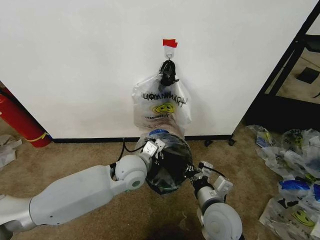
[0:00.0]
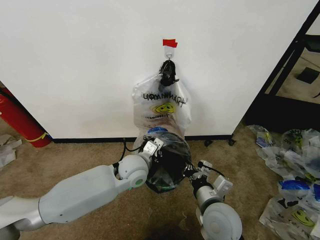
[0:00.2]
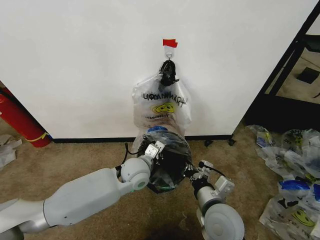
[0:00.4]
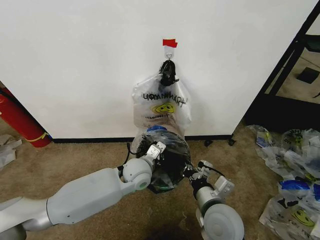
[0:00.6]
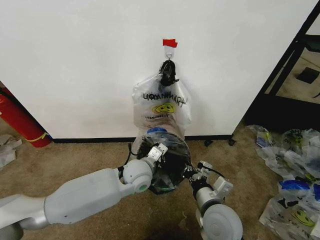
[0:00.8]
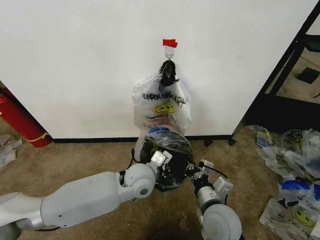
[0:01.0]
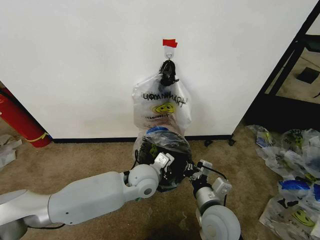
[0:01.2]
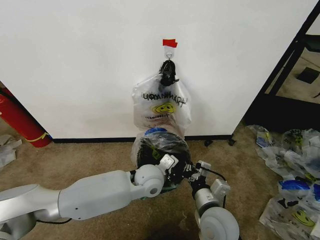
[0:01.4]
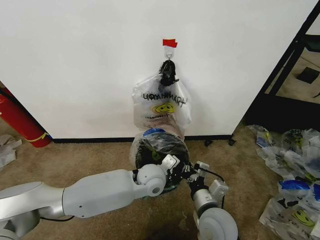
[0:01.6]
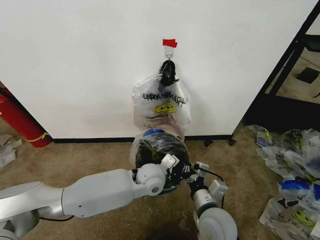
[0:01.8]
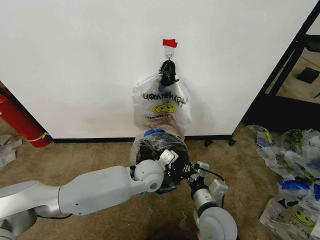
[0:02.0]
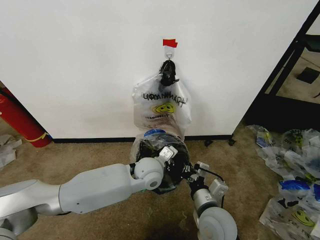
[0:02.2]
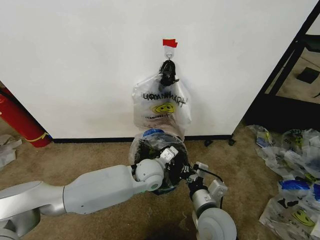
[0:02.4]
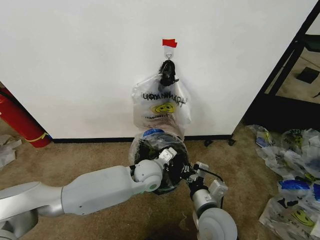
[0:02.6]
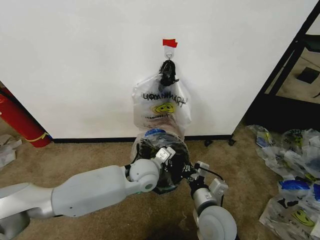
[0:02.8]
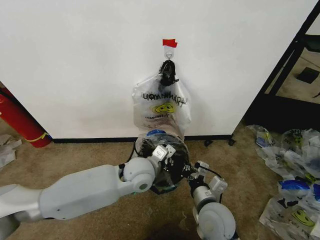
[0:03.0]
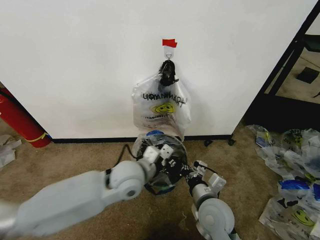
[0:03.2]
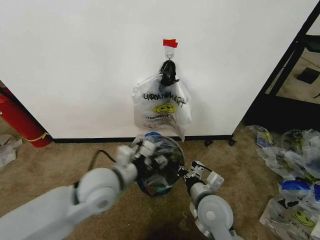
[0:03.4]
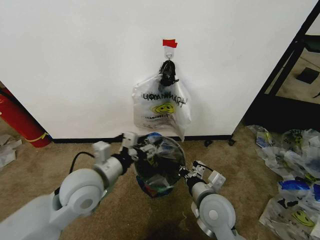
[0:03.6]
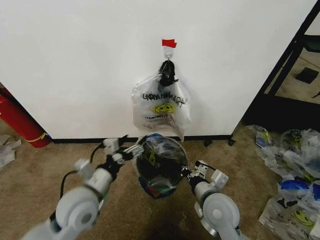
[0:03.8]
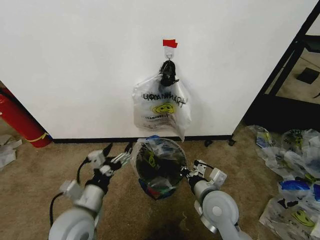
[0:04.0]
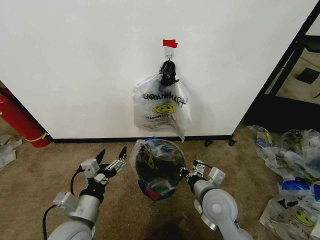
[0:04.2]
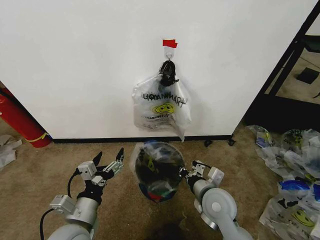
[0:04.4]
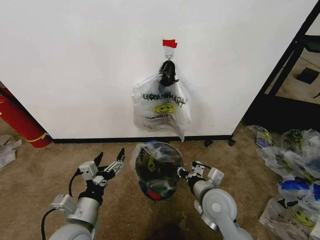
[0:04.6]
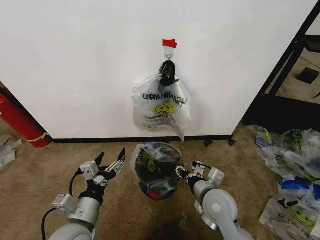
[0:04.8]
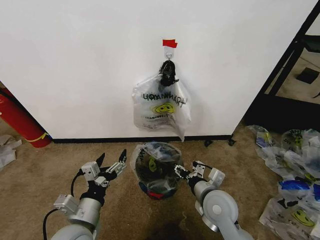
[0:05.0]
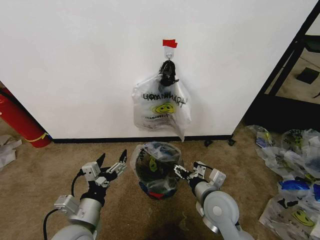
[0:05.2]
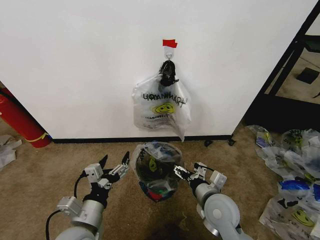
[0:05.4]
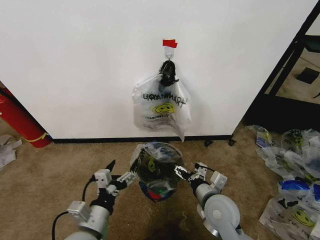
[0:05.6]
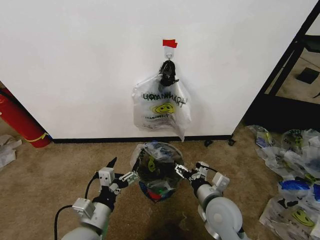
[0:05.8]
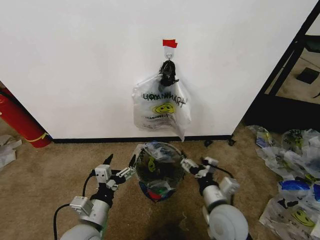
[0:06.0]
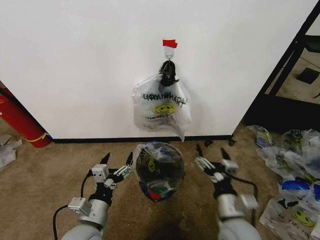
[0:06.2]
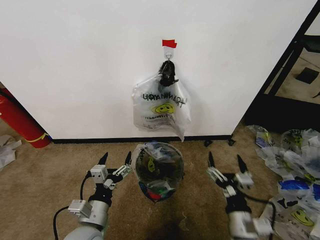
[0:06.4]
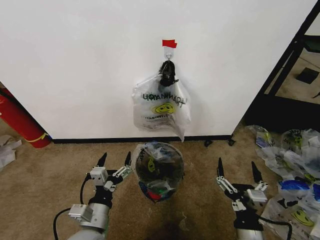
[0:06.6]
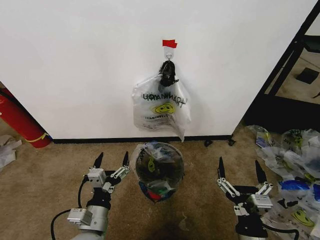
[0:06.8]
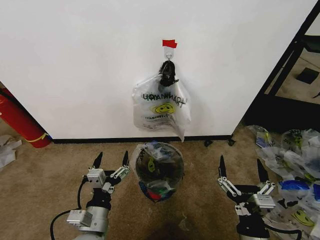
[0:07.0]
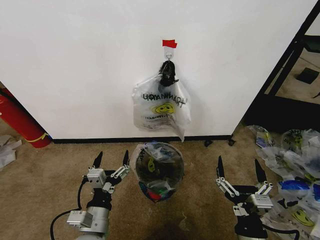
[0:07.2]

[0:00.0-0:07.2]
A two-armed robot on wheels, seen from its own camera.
Task of the whole recording: Pick up the garbage bag from the wall and place it over the trash bin.
0:00.0 to 0:01.4: The left gripper ends up some 5 cm from where it was.
0:01.4 to 0:02.8: The grippers stay close to where they were, moving slightly.
0:02.8 to 0:04.4: The left gripper moves backward and to the left, about 25 cm, and opens, while the right gripper changes place by approximately 5 cm.
0:04.4 to 0:05.8: The right gripper opens up.
0:05.8 to 0:07.2: The right gripper is displaced backward by about 15 cm.

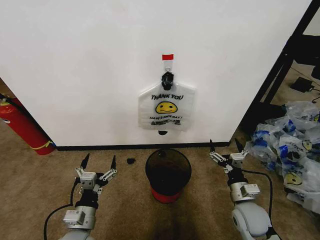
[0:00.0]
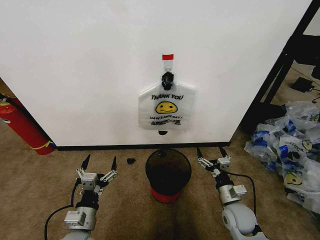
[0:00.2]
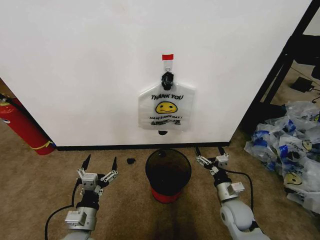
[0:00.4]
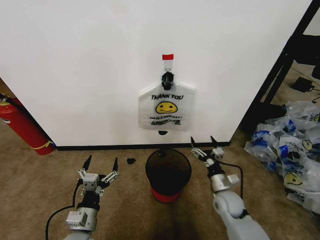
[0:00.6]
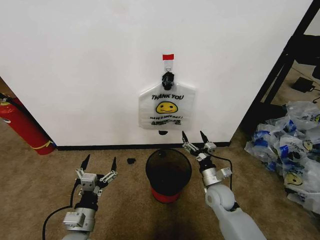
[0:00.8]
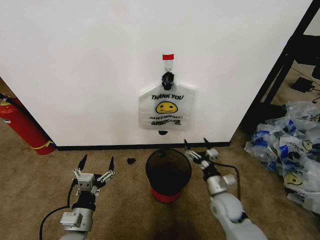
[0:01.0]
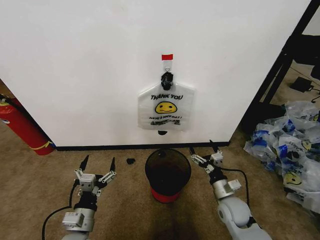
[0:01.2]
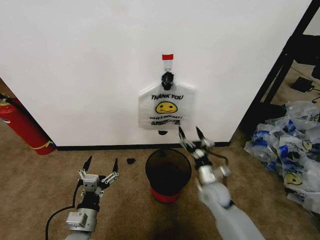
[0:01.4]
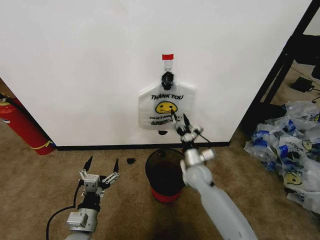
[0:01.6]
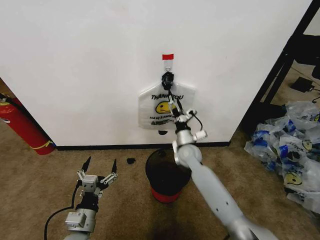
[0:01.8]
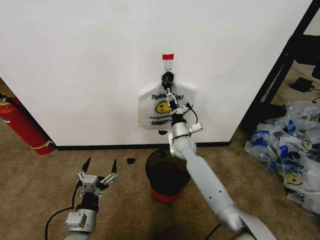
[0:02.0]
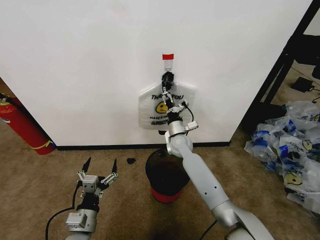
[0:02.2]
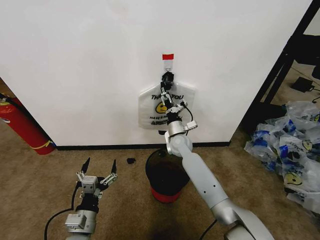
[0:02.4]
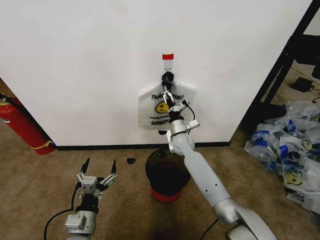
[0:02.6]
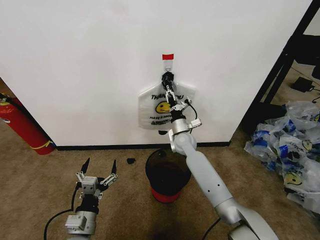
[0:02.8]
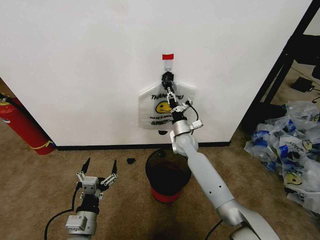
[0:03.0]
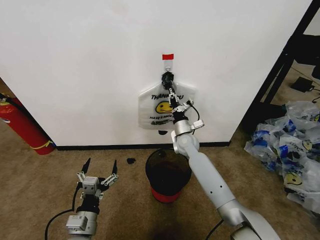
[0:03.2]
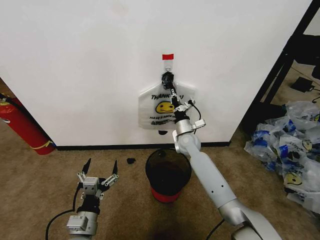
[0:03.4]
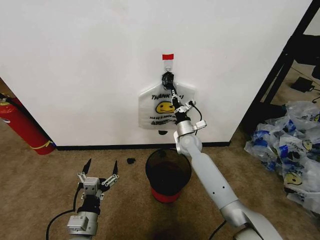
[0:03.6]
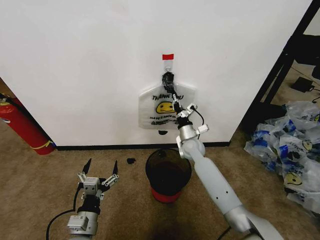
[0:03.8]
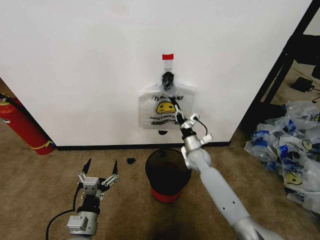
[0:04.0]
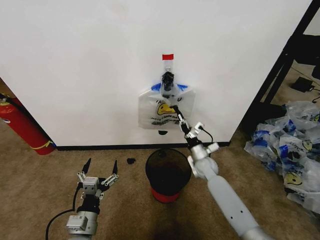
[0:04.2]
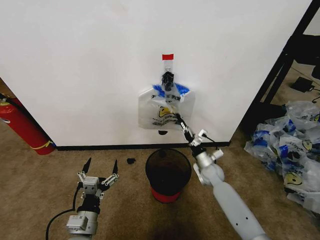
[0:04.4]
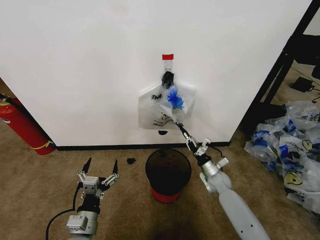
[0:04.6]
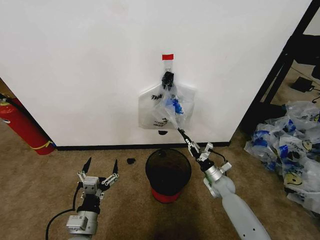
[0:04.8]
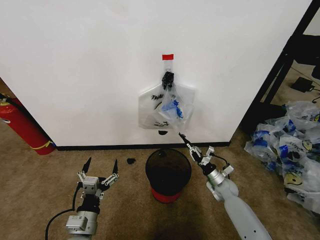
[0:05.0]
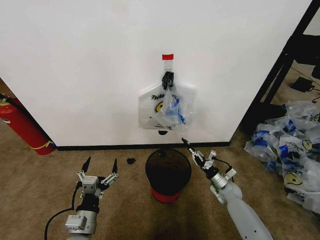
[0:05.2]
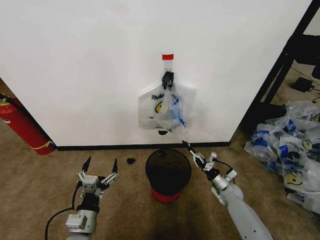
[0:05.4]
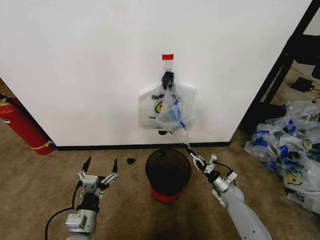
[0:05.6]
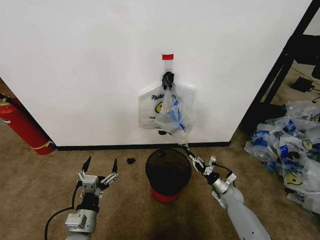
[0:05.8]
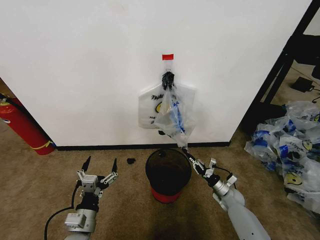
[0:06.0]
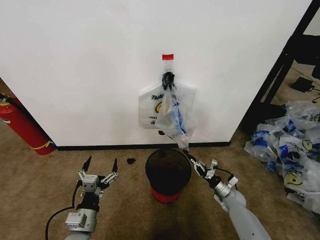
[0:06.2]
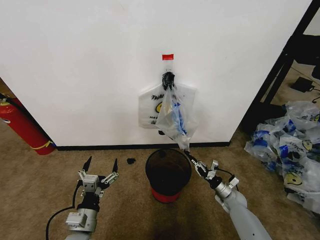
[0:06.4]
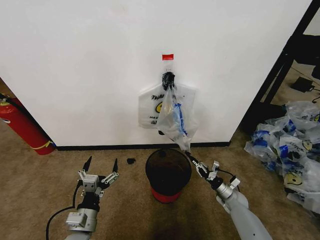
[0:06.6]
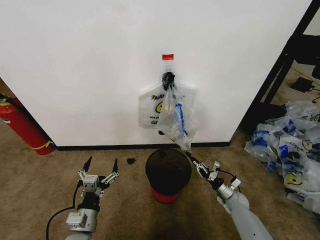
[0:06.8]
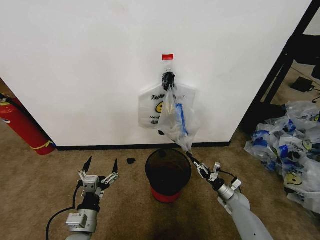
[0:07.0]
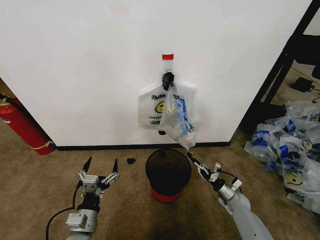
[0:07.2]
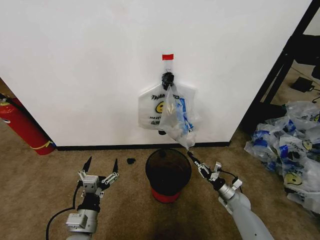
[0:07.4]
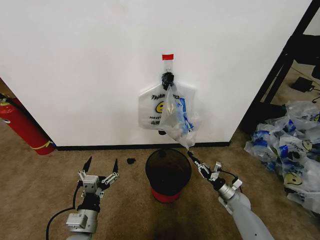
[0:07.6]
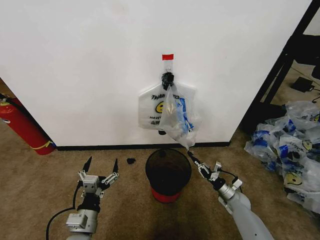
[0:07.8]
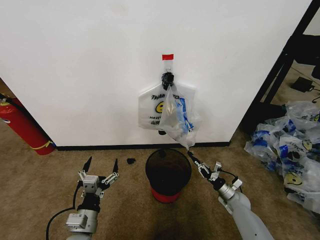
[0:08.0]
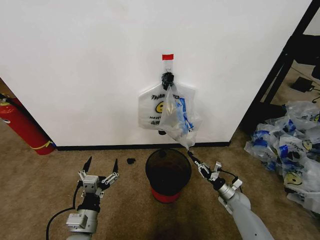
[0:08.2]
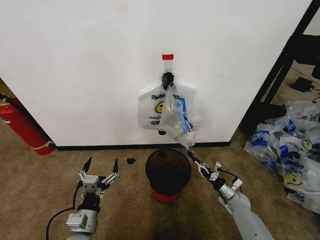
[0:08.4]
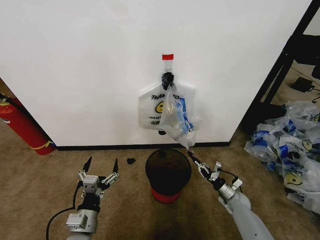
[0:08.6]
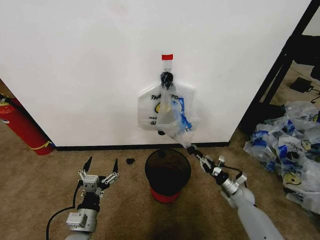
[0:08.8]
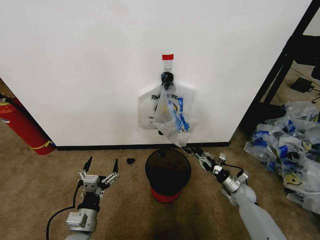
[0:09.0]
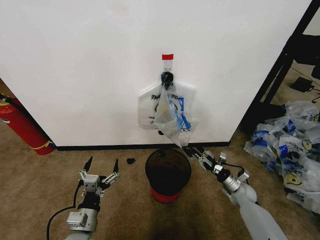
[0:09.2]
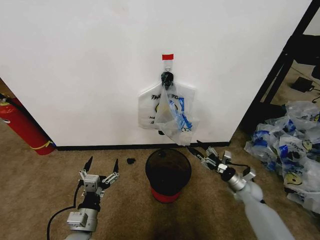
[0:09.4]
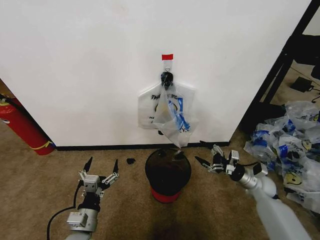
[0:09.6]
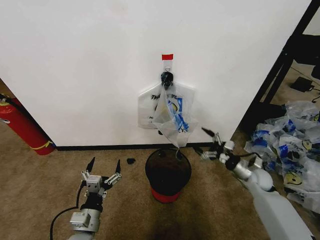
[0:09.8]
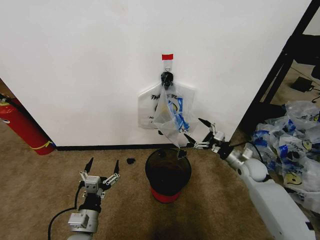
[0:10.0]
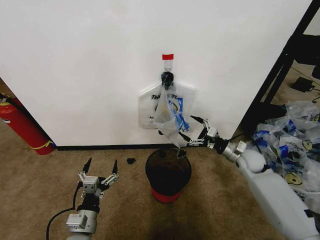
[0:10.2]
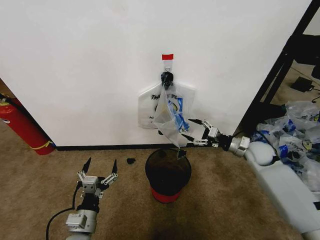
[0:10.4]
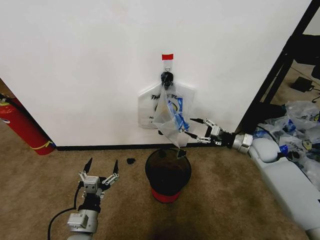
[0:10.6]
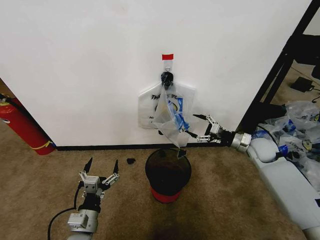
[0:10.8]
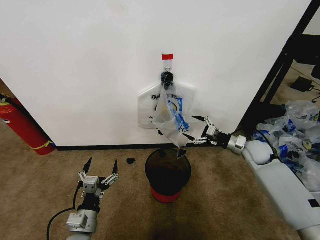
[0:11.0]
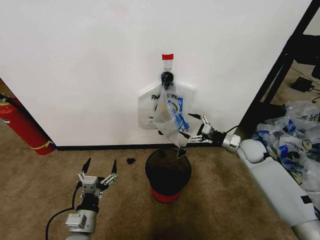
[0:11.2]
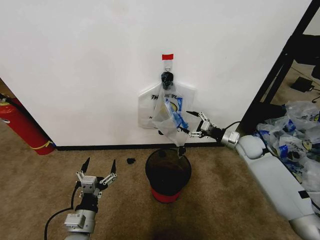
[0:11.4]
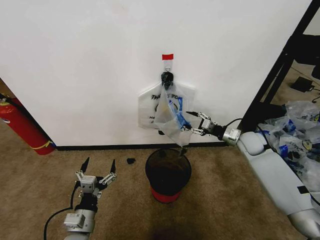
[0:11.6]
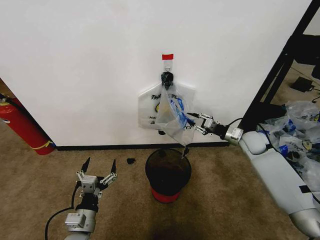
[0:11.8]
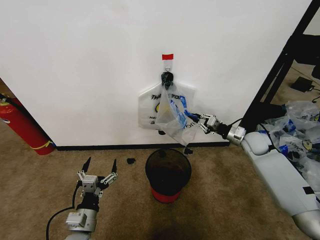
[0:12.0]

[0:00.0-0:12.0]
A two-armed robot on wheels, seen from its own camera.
Task of the whole recording: Pick up the garbage bag from the wall and place it over the trash bin.
0:01.6 to 0:03.0: The right gripper is displaced forward by some 10 cm, and closes up.
0:03.0 to 0:04.4: The right gripper shifts some 20 cm to the right, downward and backward, and closes its fingers.
0:04.4 to 0:06.0: The right gripper goes some 15 cm downward, to the right and backward.
0:06.0 to 0:07.6: The grippers move only a little.
0:07.6 to 0:09.0: The right gripper heads upward, covering about 5 cm.
0:09.0 to 0:10.4: The right gripper shifts approximately 20 cm upward, and opens its fingers.
0:10.4 to 0:12.0: The right gripper closes.

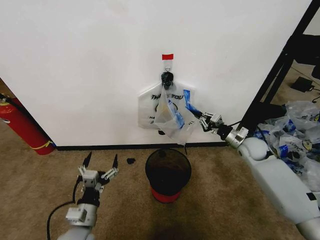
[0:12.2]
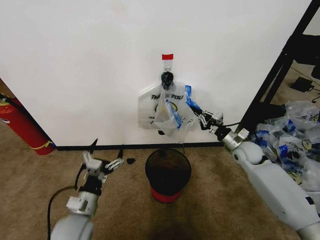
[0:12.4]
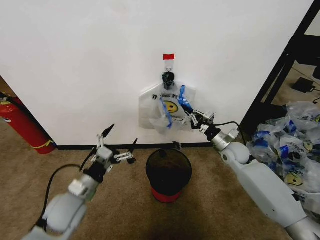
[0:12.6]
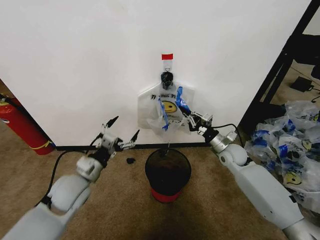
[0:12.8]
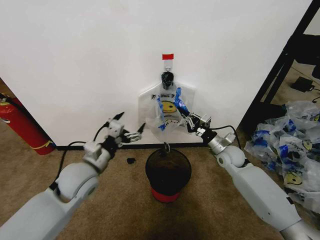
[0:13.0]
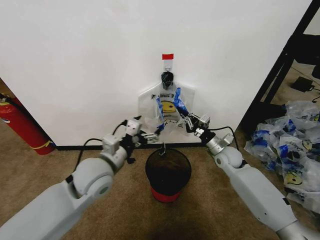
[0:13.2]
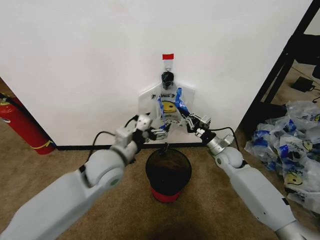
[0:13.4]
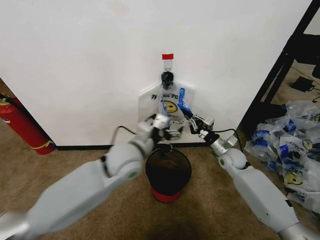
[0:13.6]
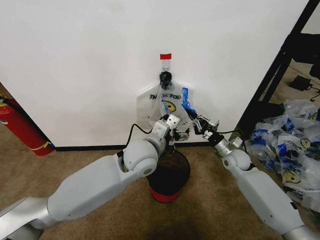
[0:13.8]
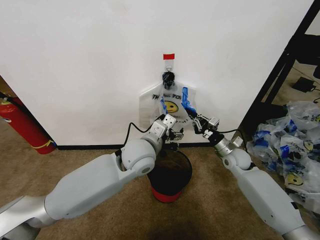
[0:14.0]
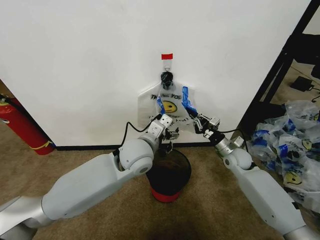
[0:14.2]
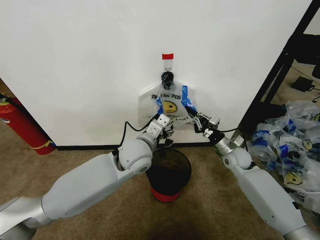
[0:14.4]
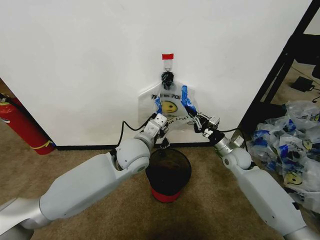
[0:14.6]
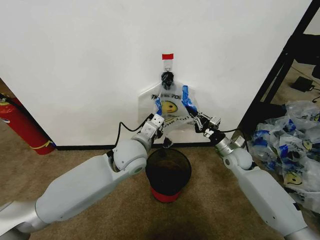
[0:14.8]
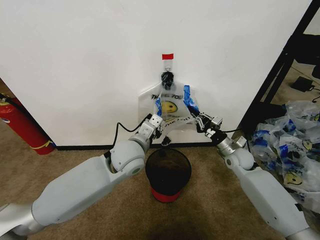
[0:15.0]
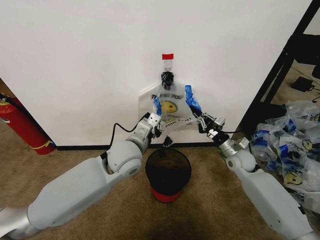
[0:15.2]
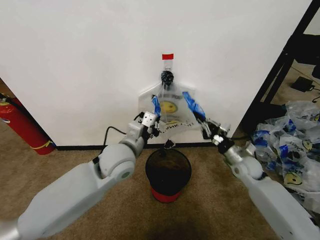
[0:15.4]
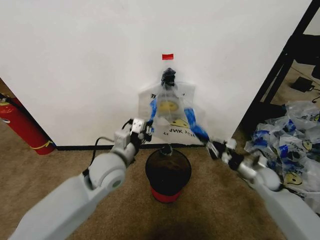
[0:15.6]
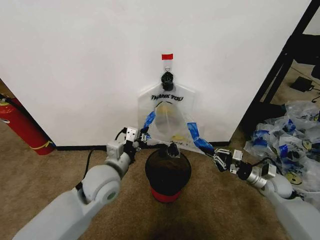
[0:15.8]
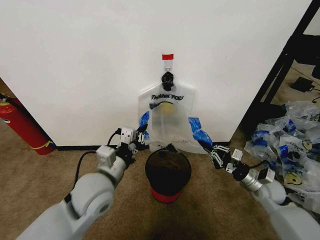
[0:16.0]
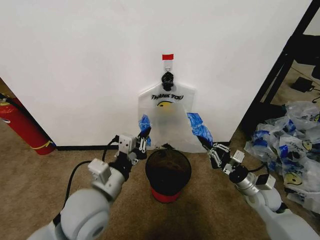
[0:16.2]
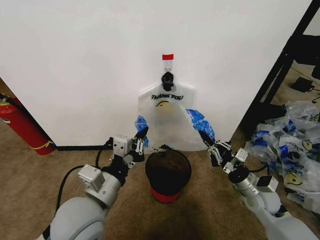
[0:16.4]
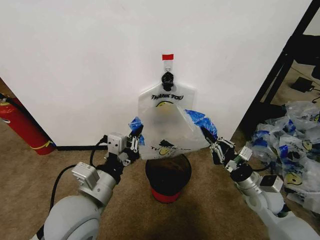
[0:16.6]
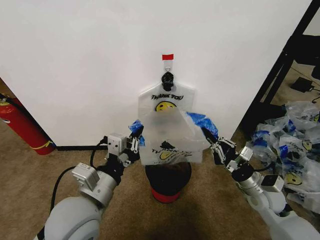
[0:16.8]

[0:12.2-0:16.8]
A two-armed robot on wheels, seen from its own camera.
Task of the whole recording: Pick up the garbage bag from the wall and place it over the trash bin.
0:12.2 to 0:13.8: The right gripper is displaced to the left by about 5 cm. The left gripper heads to the right, forward and upward, covering about 30 cm.
0:13.8 to 0:15.2: The left gripper closes up.
0:15.2 to 0:16.8: The left gripper travels backward and to the left by roughly 20 cm; the right gripper shifts about 15 cm backward.
